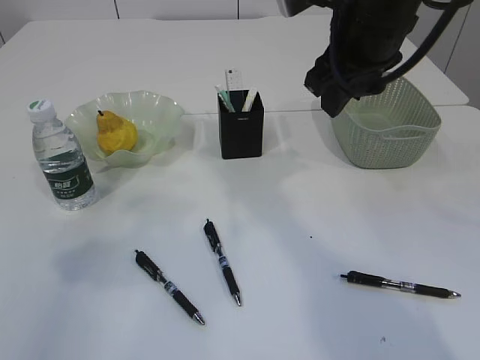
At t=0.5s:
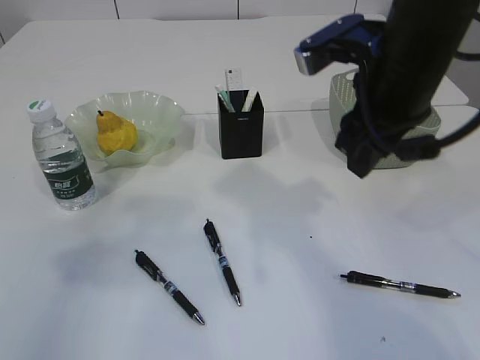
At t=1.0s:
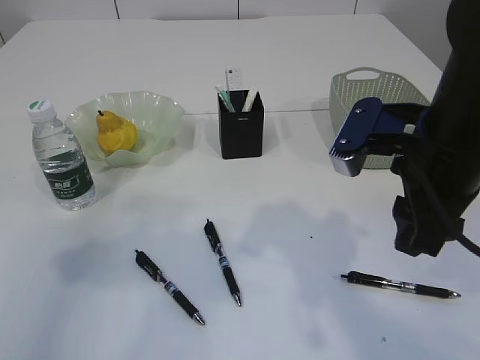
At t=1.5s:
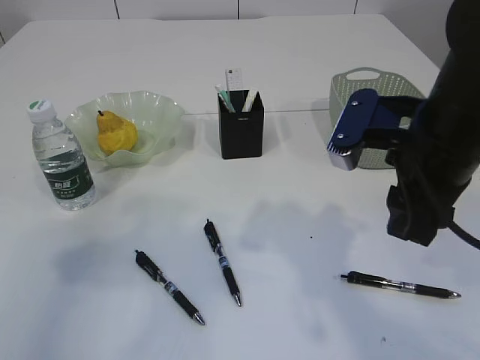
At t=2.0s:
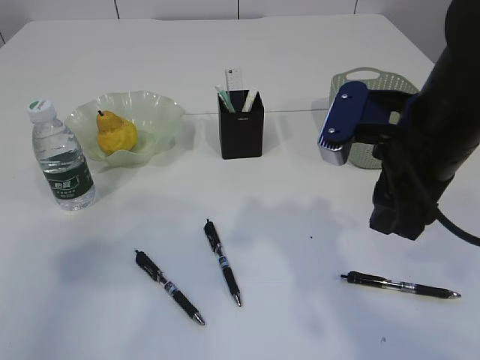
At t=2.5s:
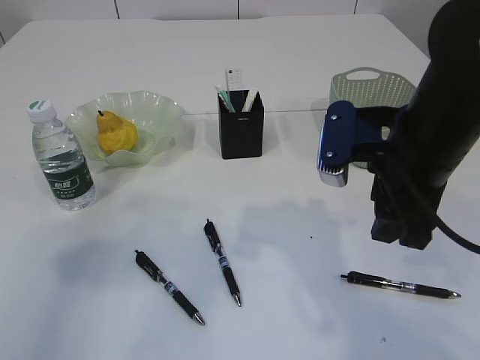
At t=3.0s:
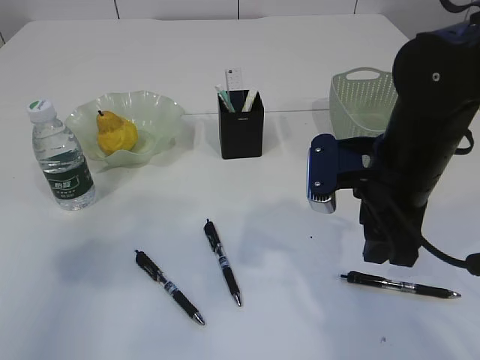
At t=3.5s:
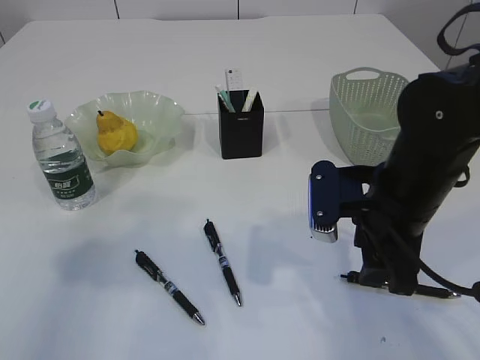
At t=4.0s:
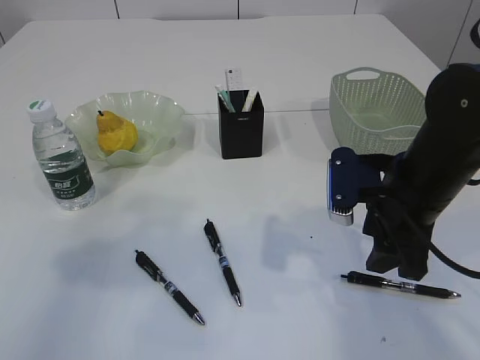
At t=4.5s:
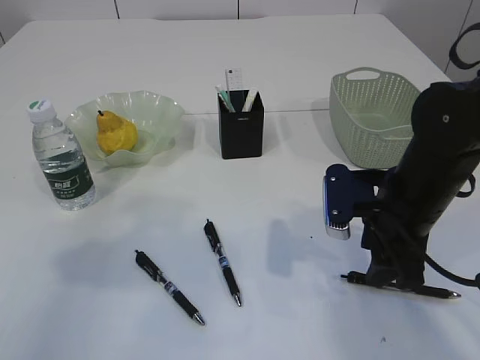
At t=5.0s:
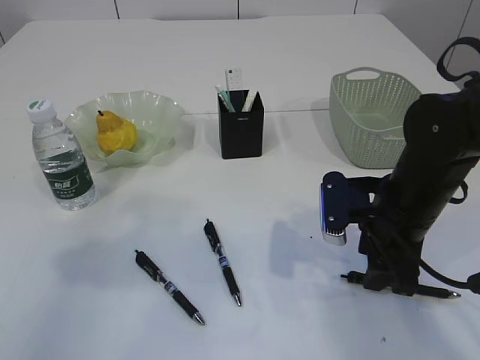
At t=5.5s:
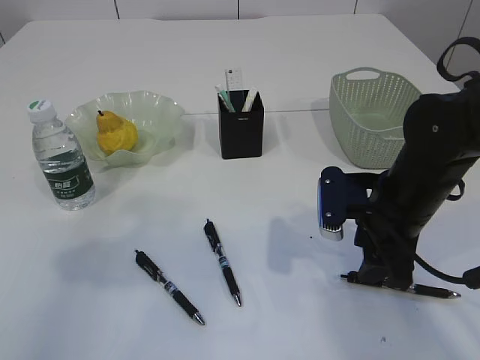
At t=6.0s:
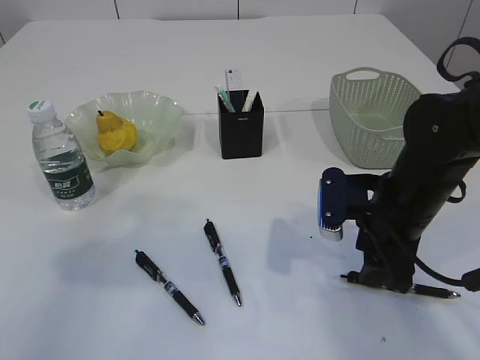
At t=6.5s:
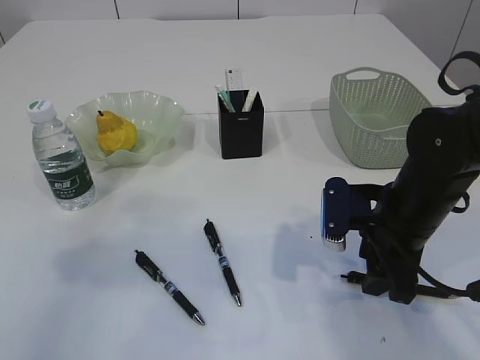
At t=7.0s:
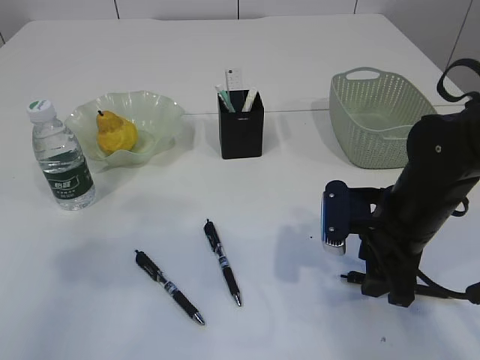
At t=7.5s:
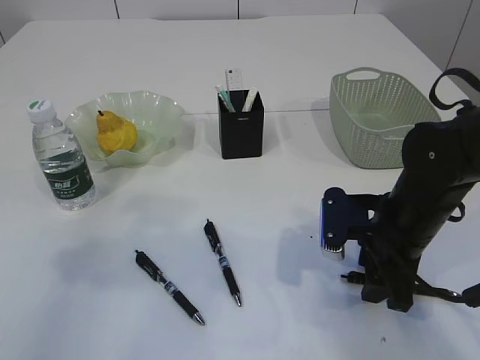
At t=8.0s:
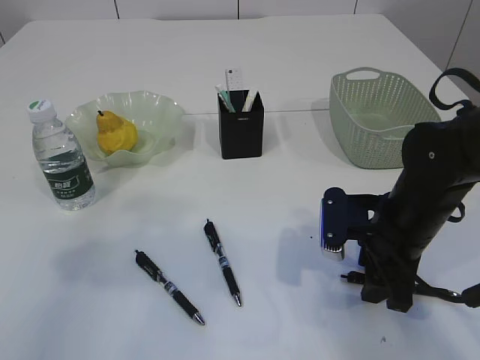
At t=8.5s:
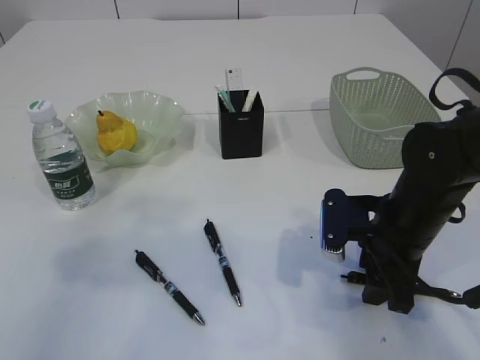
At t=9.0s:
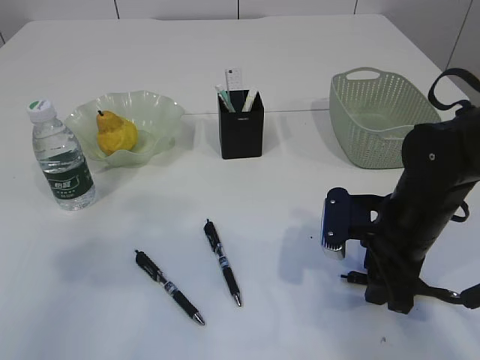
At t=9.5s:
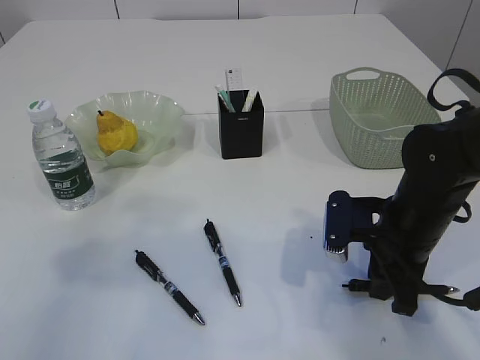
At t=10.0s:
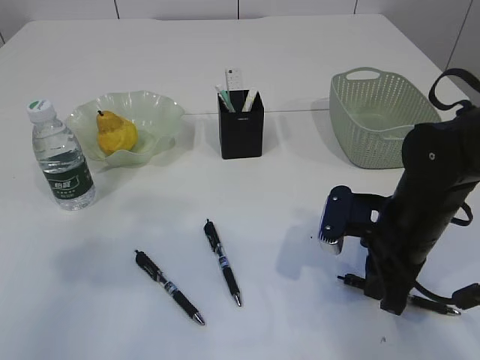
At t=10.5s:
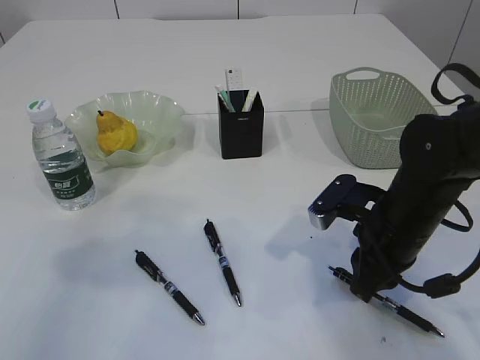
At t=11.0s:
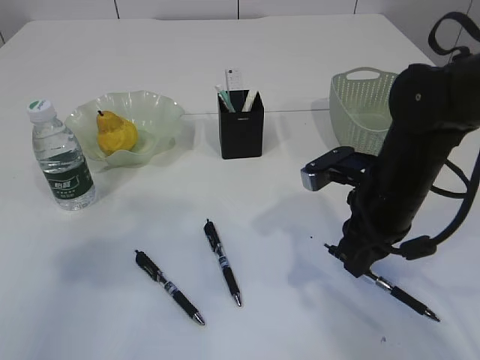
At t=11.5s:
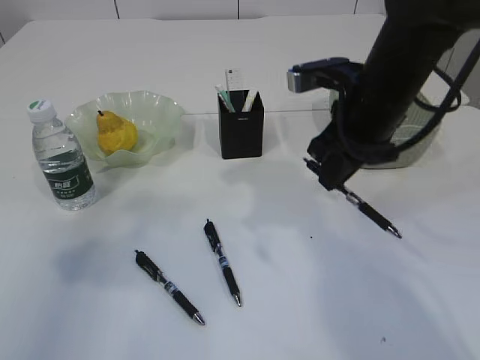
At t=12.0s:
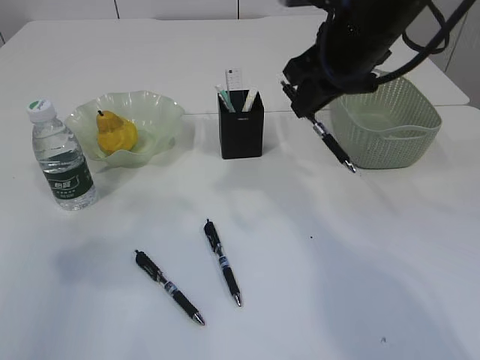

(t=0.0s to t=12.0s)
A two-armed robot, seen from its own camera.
Step, t=0.0s - t=10.5s: Pick up the pen with right arm.
t=0.0s - t=2.0s: The right gripper heads backward and downward, covering approximately 10 cm.
t=2.0s - t=4.0s: The right gripper goes about 5 cm downward.
t=4.0s - t=8.0s: The grippers move only a little.
t=8.0s - t=10.0s: The right gripper closes.
t=10.0s - t=12.0s: The right gripper moves upward and forward, roughly 20 cm.

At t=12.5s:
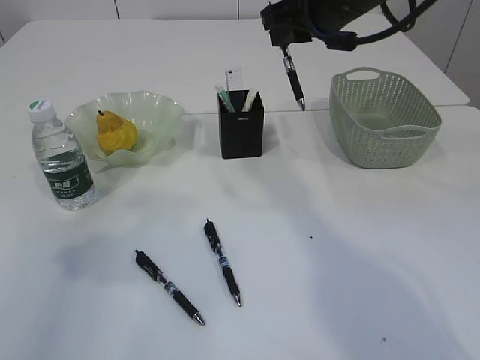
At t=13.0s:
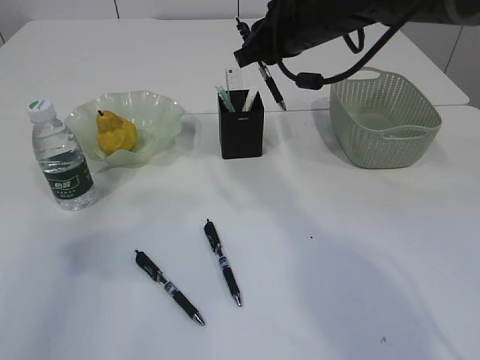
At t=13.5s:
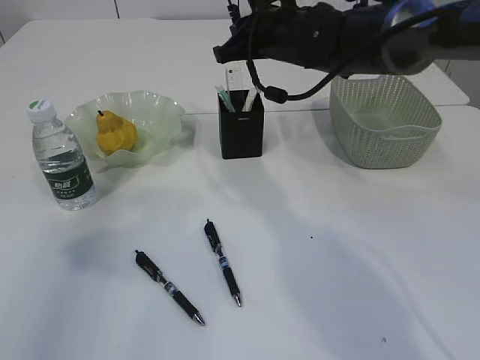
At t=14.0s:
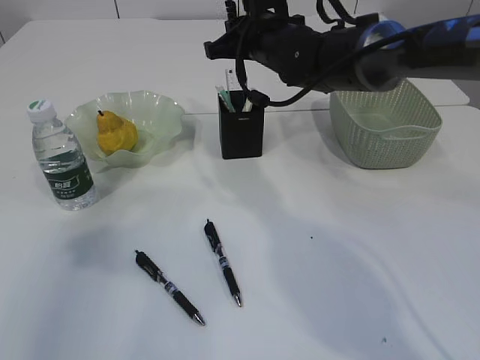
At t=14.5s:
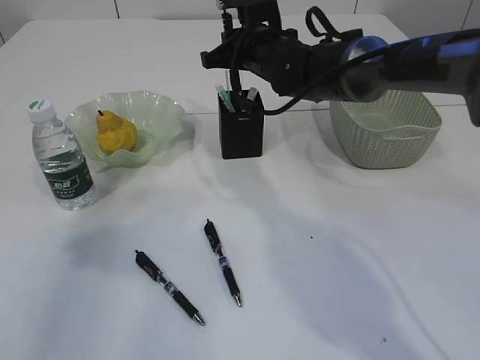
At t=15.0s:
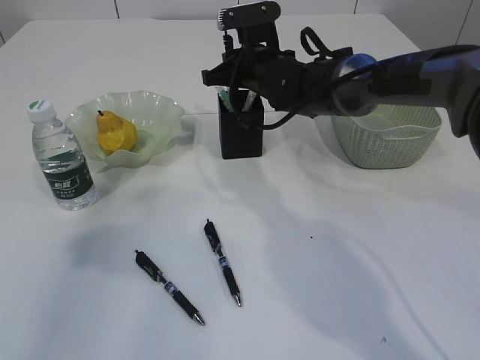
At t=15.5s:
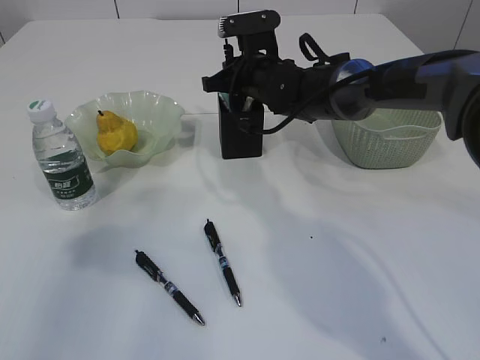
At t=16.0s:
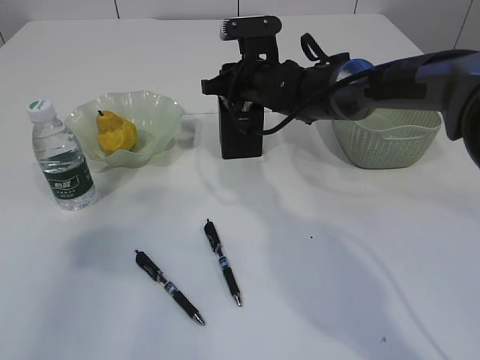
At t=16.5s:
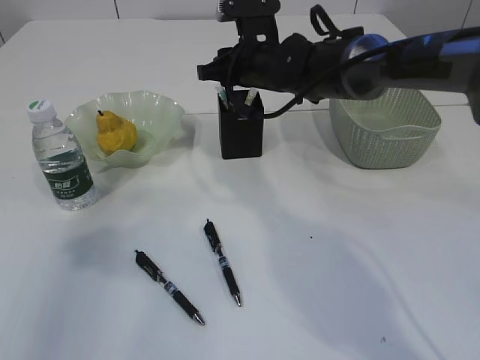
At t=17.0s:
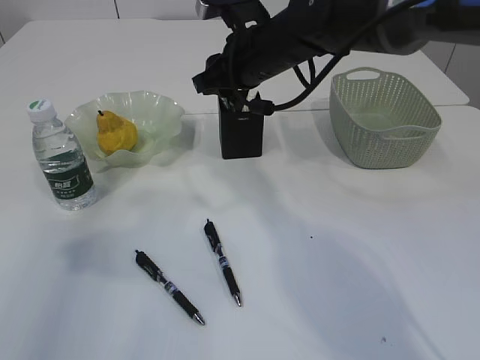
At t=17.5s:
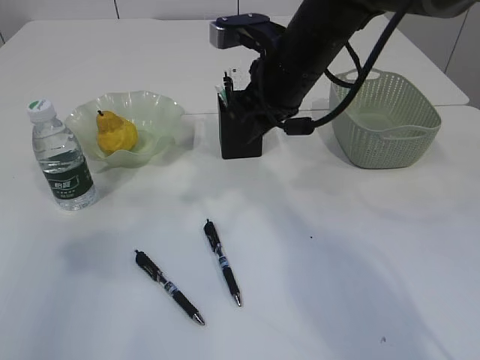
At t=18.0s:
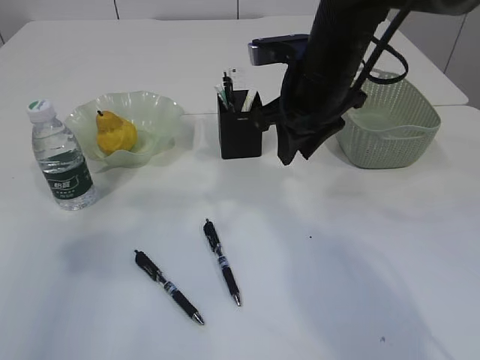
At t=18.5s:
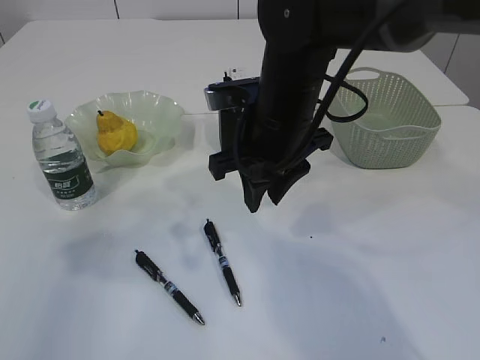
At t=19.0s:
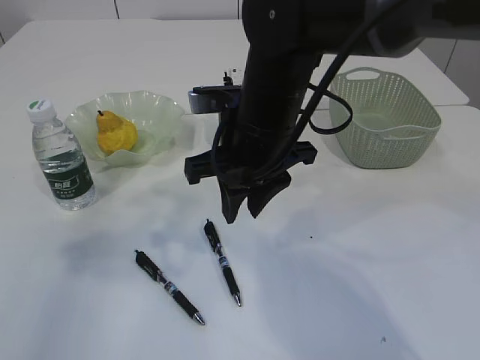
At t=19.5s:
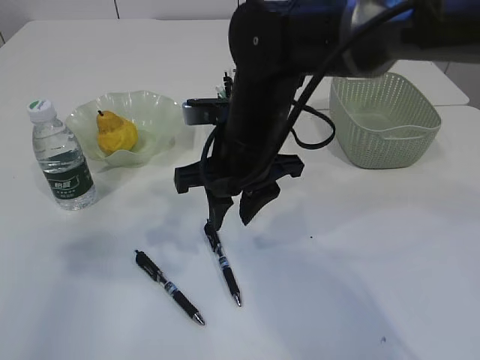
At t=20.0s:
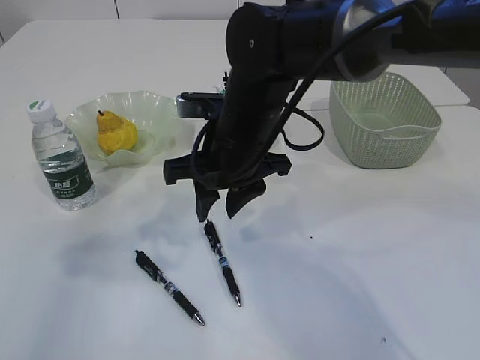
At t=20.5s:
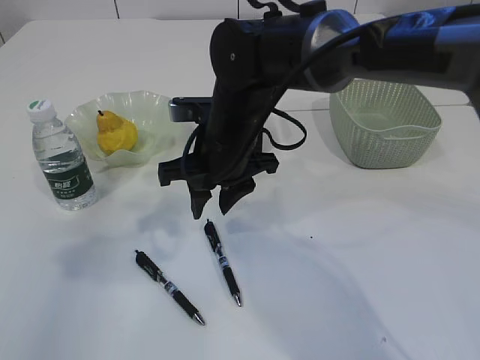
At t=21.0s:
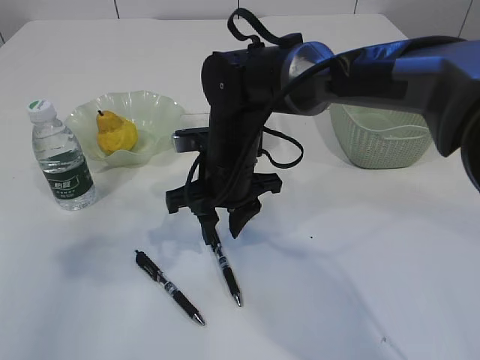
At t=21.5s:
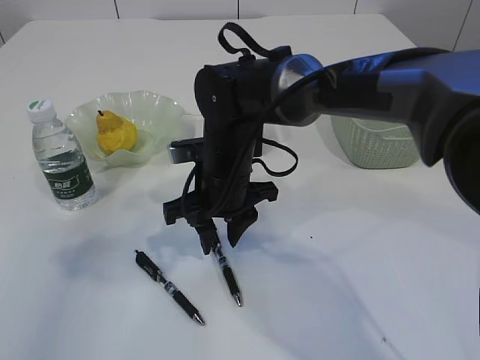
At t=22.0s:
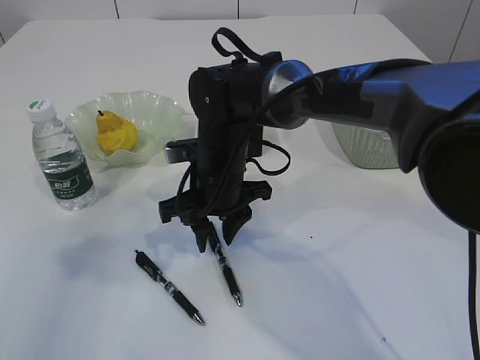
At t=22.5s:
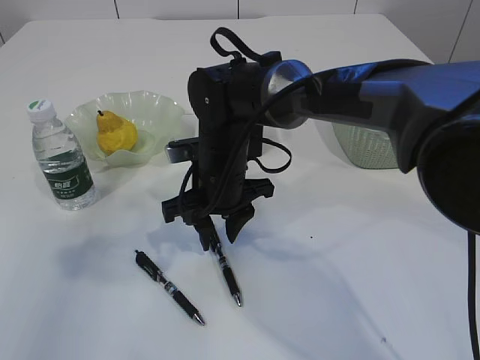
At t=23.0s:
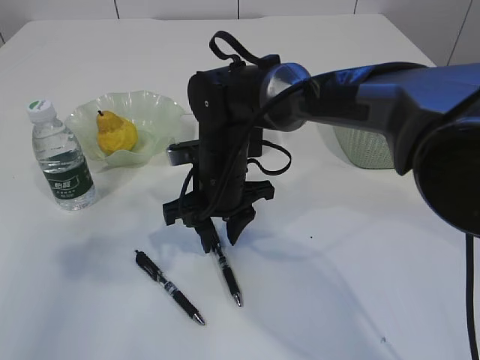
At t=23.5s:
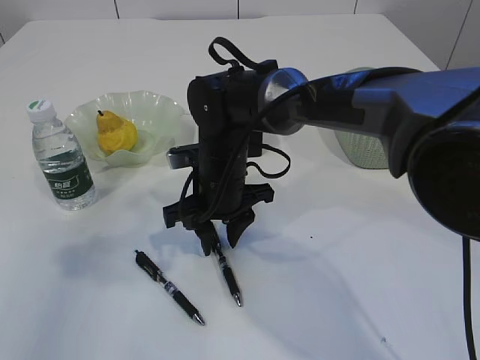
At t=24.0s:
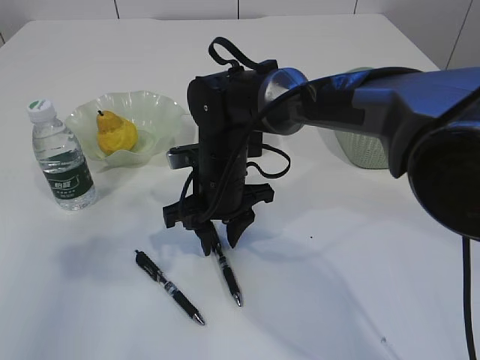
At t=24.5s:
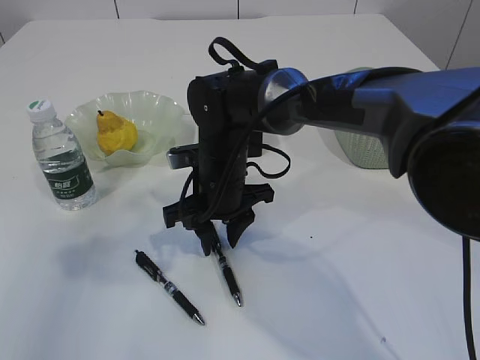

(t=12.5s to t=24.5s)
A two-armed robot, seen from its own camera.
Step, t=12.5s - t=16.5s: Place the pen into the pen holder.
t=12.5s - t=14.5s: The right gripper goes roughly 15 cm downward, forward and to the left.
t=14.5s - t=16.5s: The grippers make only small movements.
t=16.5s - t=18.5s: The right gripper heads backward, covering some 15 cm.
t=18.5s - t=20.5s: The right gripper heads to the left, covering some 5 cm.
t=20.5s - t=22.5s: The right gripper shifts about 5 cm downward.
t=22.5s - t=24.5s: The two grippers keep their place.

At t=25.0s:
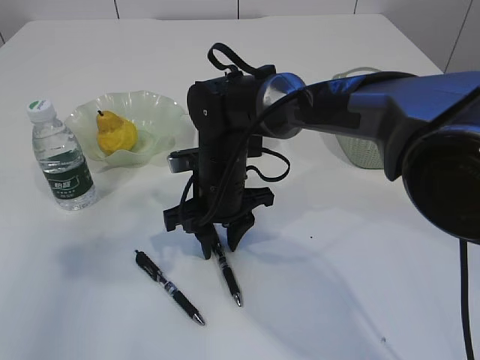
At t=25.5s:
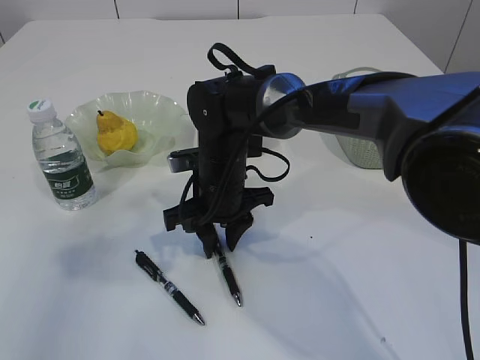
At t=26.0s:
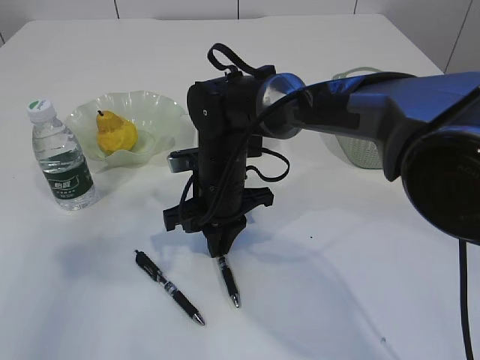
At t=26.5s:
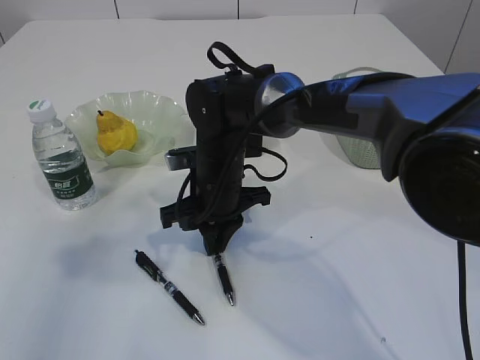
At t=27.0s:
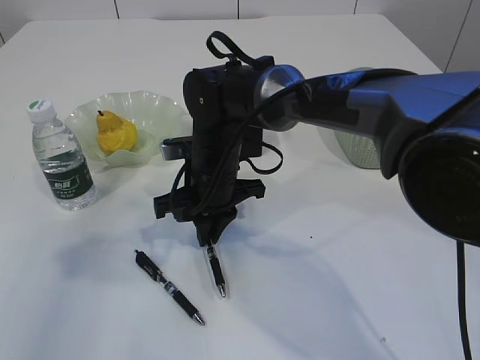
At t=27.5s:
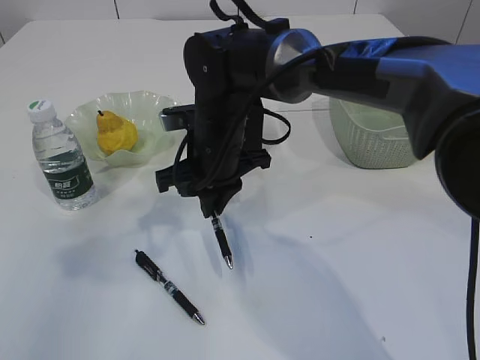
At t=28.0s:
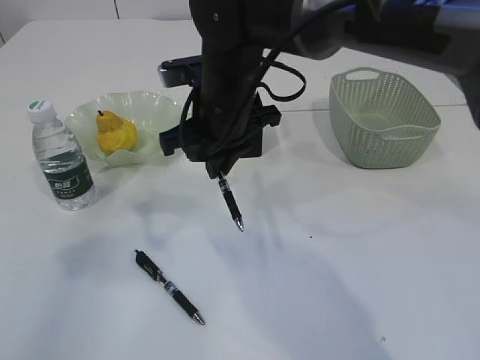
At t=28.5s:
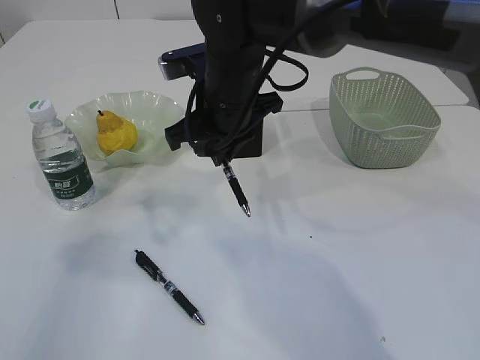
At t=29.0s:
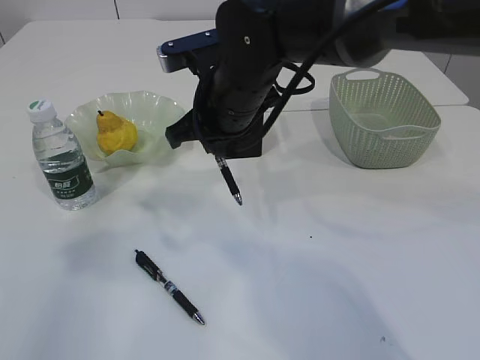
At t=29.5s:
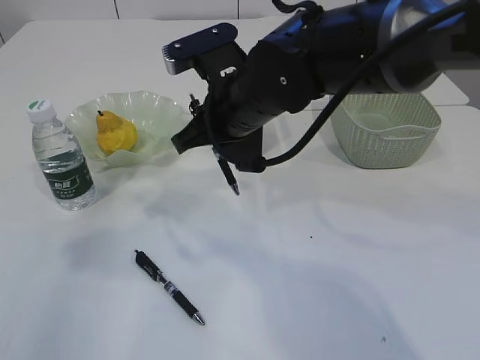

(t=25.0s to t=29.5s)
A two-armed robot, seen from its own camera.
Step, t=25.0s - t=27.5s: Pick up the pen with right arm.
t=25.0s - t=27.0s: The right gripper closes.
t=27.0s - t=29.5s: The right gripper is displaced upward by approximately 10 cm.
